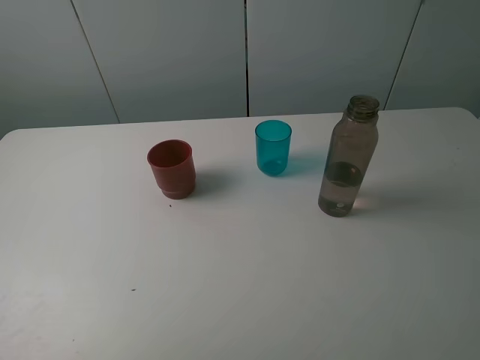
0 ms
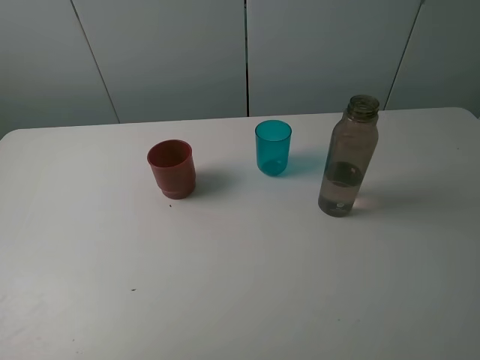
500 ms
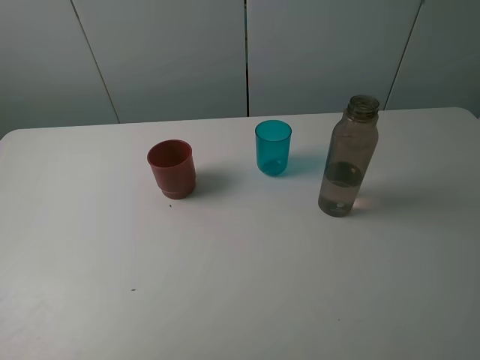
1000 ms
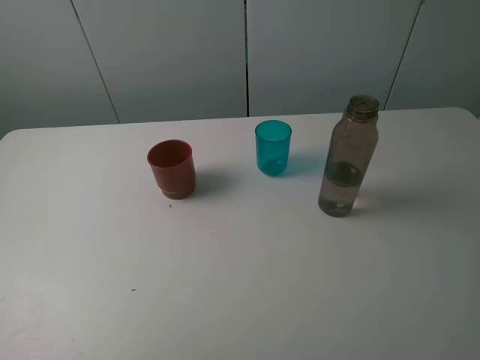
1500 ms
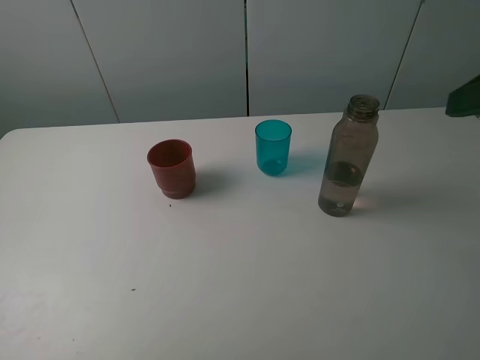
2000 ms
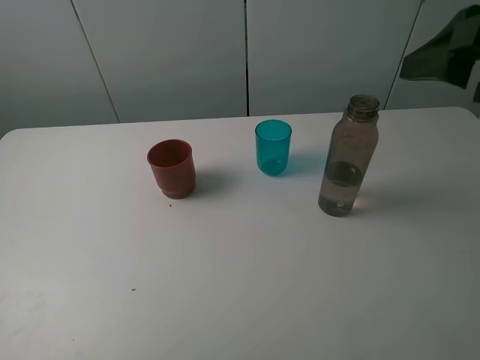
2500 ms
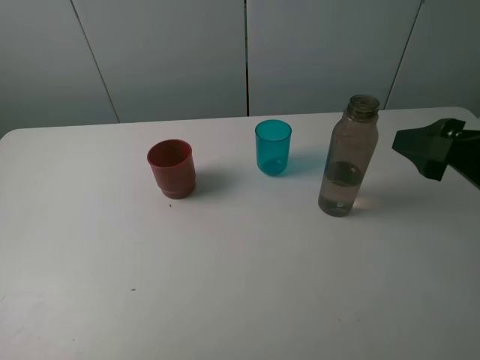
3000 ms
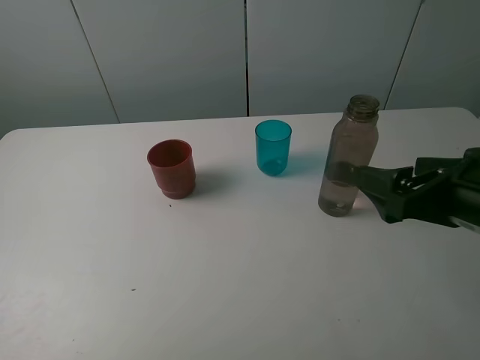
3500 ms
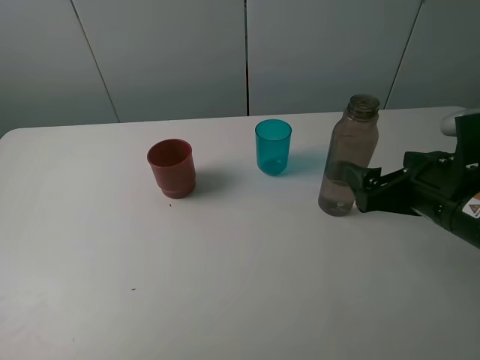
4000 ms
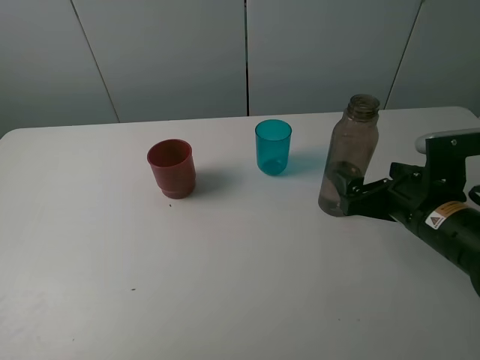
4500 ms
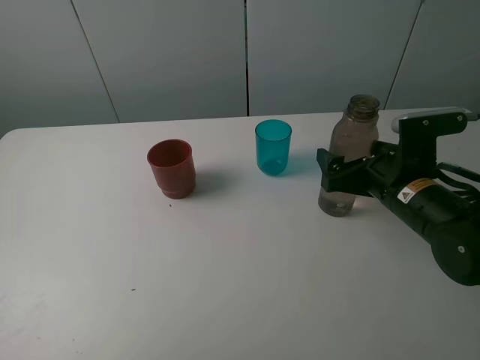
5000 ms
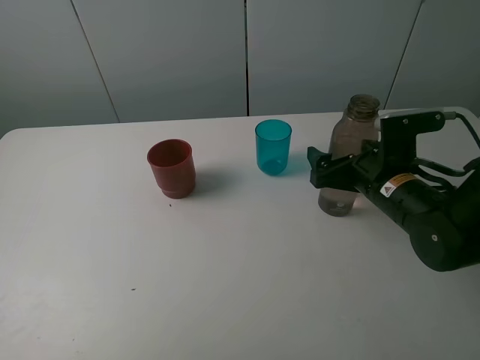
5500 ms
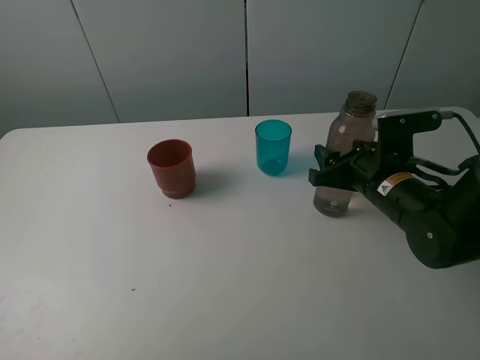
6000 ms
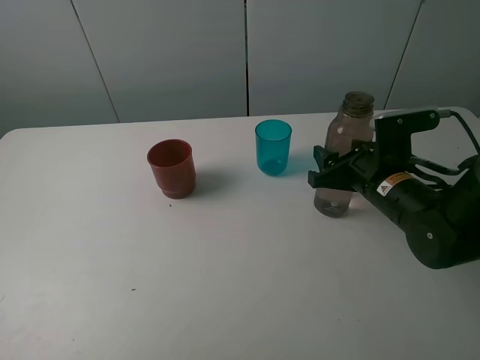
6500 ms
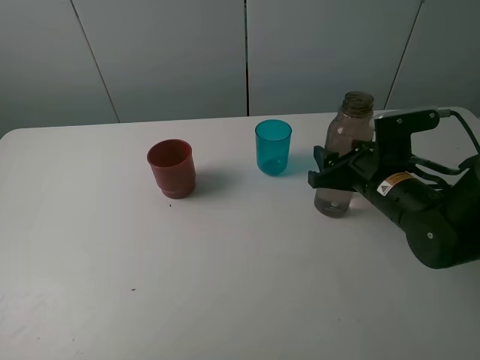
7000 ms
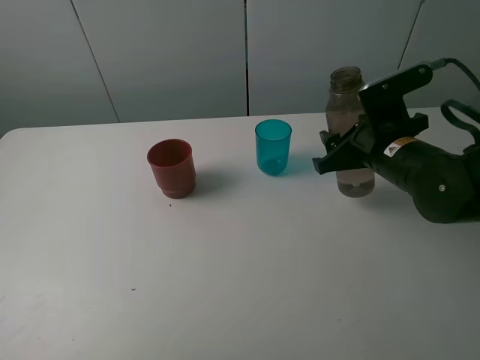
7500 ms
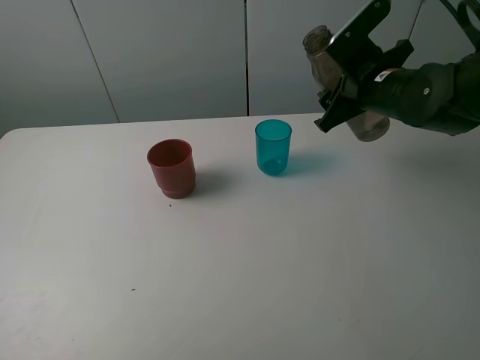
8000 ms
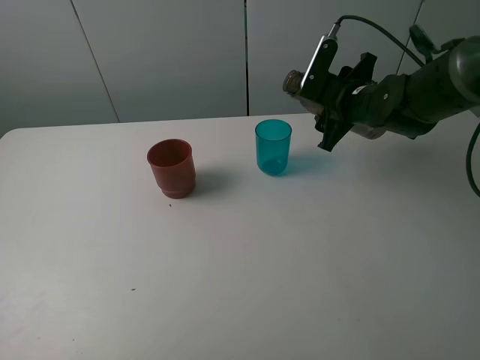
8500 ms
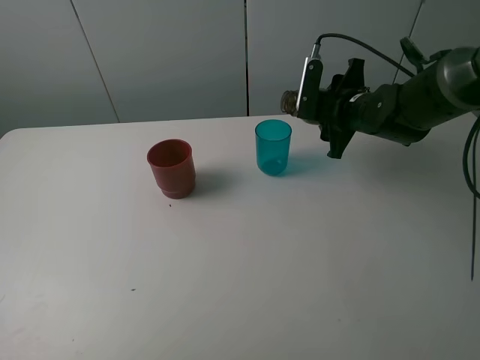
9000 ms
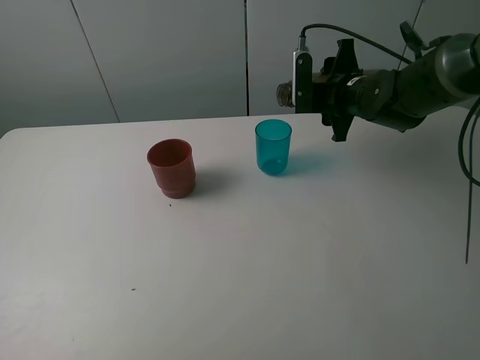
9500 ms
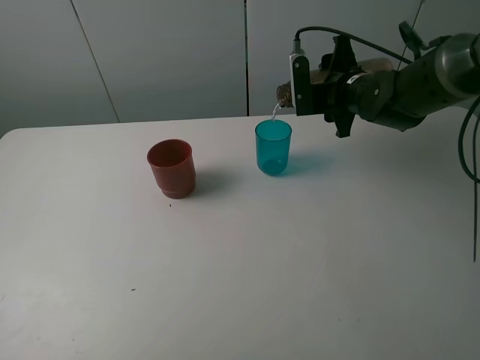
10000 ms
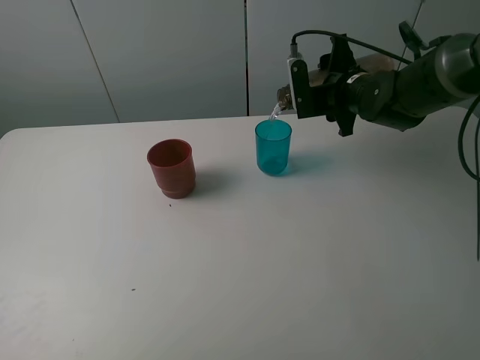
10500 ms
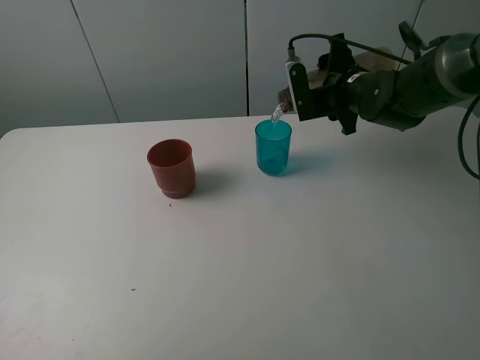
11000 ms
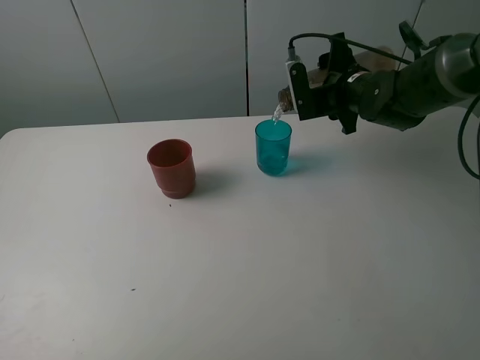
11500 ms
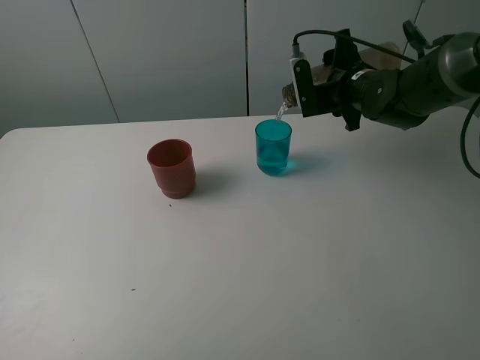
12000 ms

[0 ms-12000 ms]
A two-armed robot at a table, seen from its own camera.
Task of the whole recording: pick up the bottle and pour water into the cup, then pick up the cup containing water and pour it into another cup.
Step, 0 ms to 5500 ms: Grasp the brown bottle with the right gripper.
2000 ms to 4000 ms: The right gripper heads downward, covering some 15 cm.
4000 ms to 6000 ms: The right gripper moves forward and downward, some 10 cm, and closes its fingers.
6000 ms to 8000 ms: The right gripper goes some 15 cm forward and upward.
8000 ms to 10000 ms: The right gripper moves forward, some 5 cm.
10000 ms to 12000 ms: The grippers make only small movements.

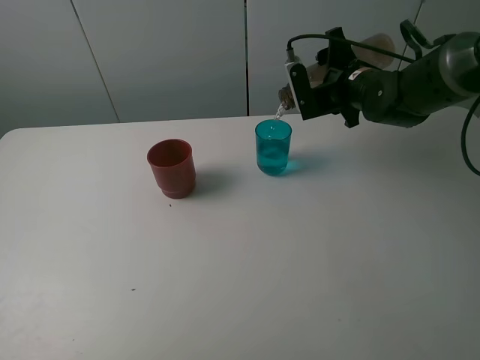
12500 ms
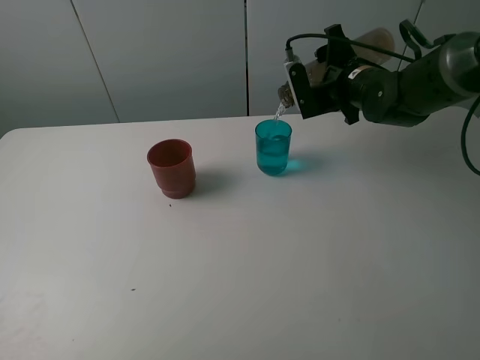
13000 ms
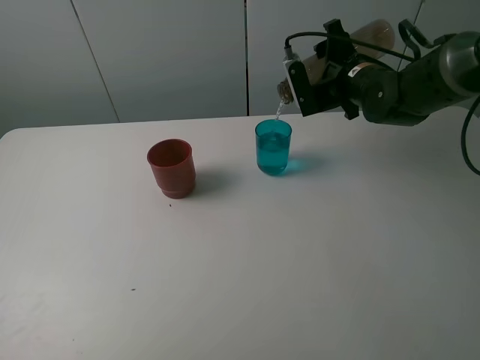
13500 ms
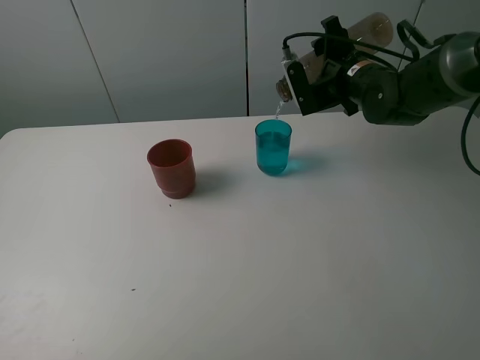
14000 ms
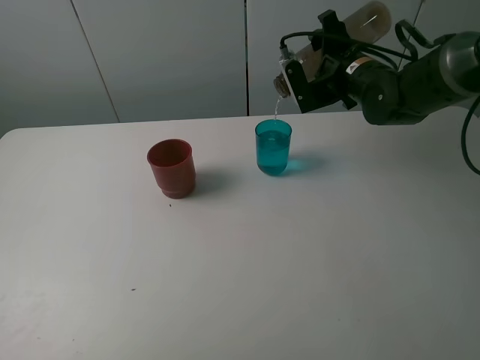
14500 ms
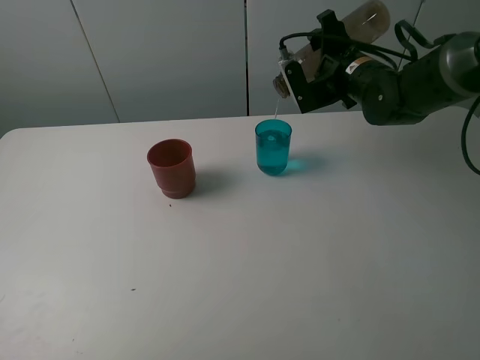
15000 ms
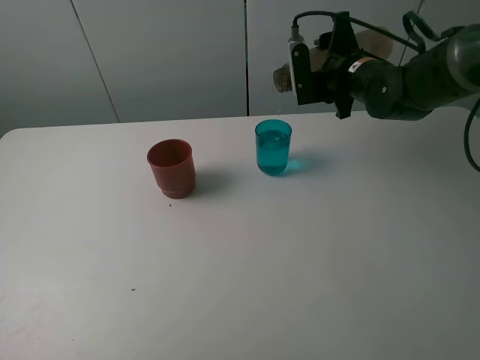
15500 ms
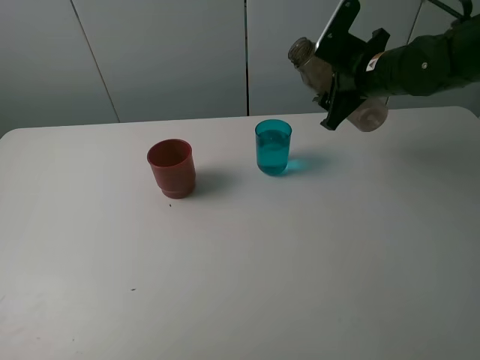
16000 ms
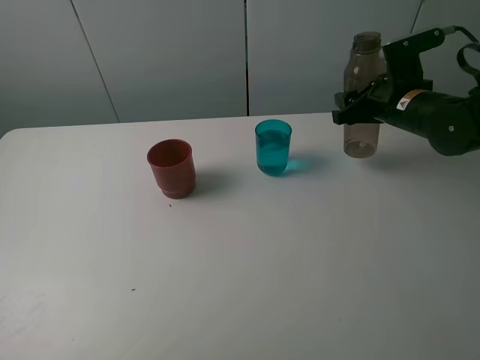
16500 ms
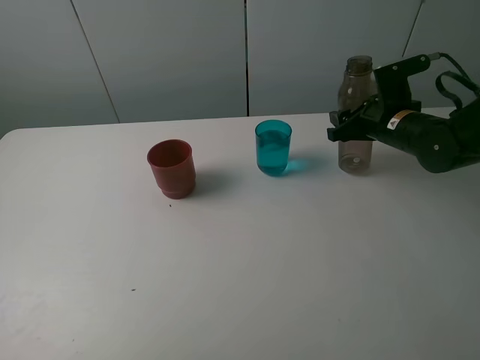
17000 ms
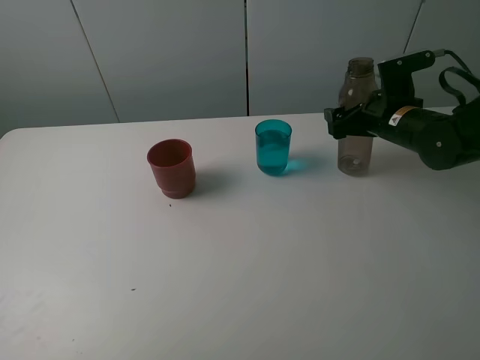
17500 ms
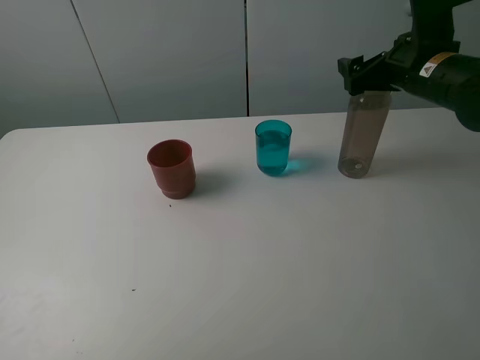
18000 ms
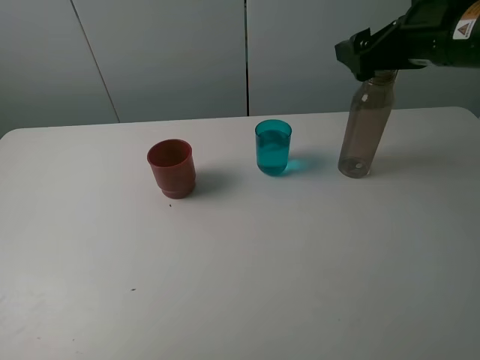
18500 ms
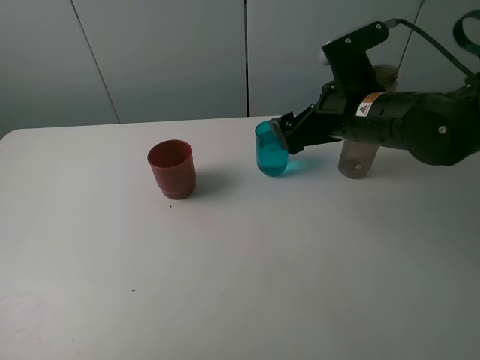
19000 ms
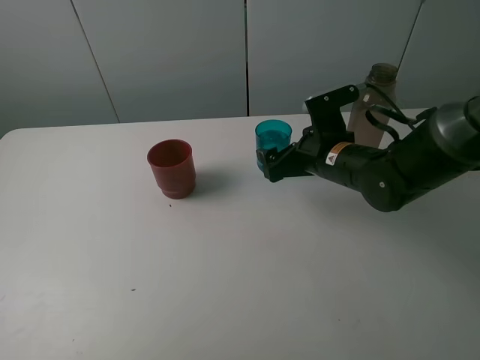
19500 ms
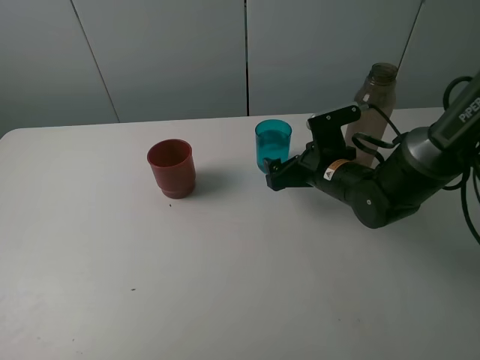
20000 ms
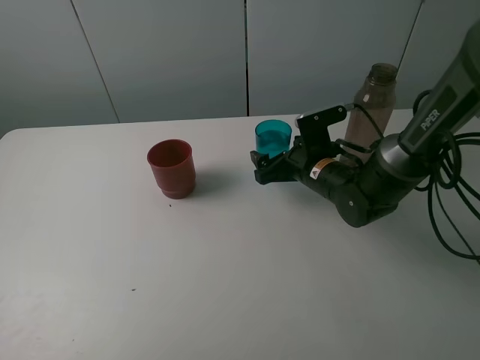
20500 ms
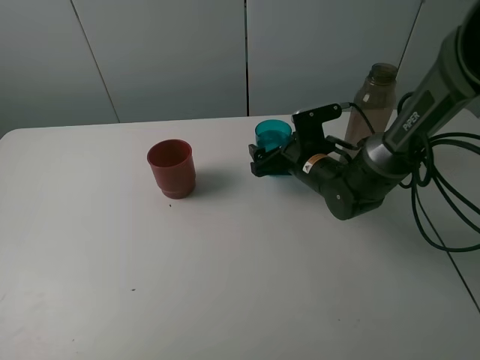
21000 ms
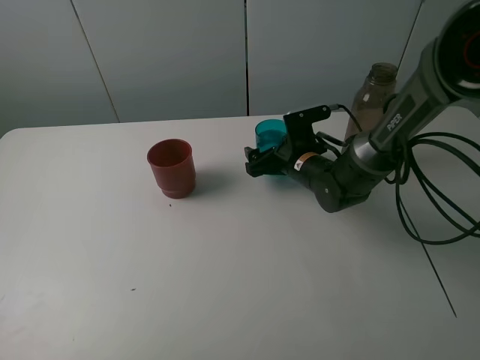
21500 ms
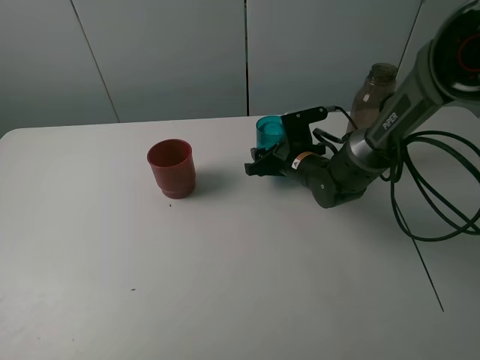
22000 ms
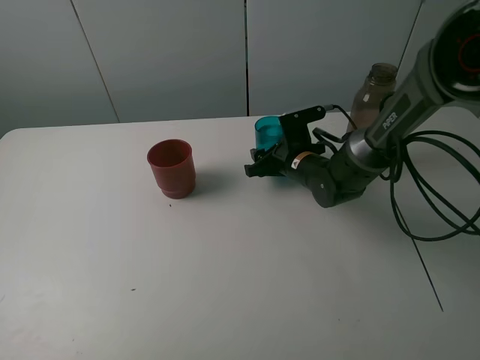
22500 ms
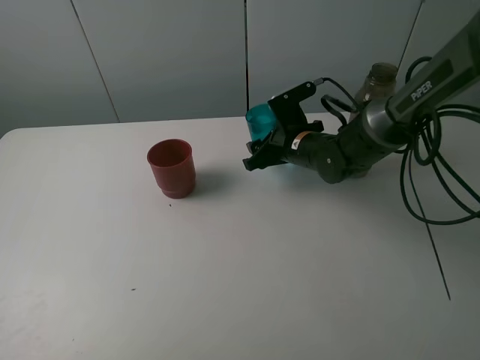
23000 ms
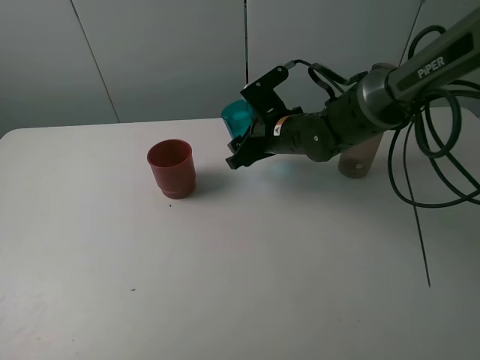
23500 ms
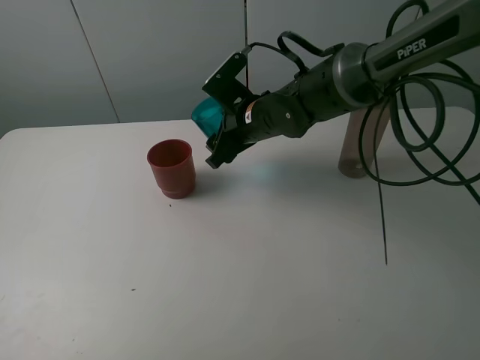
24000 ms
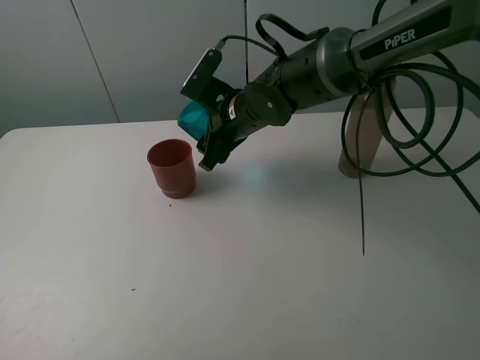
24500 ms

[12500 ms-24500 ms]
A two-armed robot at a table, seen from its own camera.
Task of the whole recording: pick up the bottle and pour water into the cup, then pick up the cup containing water and pour it into another cup.
Step, 12500 ms to 15500 ms: Pour water from brown bottle to blue cup with the right gripper.
Step, 16000 ms to 17500 ms: Place the brown bottle with the right gripper.
Step, 18000 ms to 21500 ms: Grasp the blue cup with the right gripper.
12500 ms to 14500 ms: There are only small adjustments of the grippers.
14500 ms to 16500 ms: The right gripper is displaced to the right by some 5 cm.
16500 ms to 18500 ms: The right gripper goes about 15 cm upward and backward, and opens up.
18500 ms to 20500 ms: The right gripper goes about 25 cm downward and to the left.
20500 ms to 22500 ms: The right gripper closes.
22500 ms to 24500 ms: The right gripper travels upward and to the left by some 15 cm.

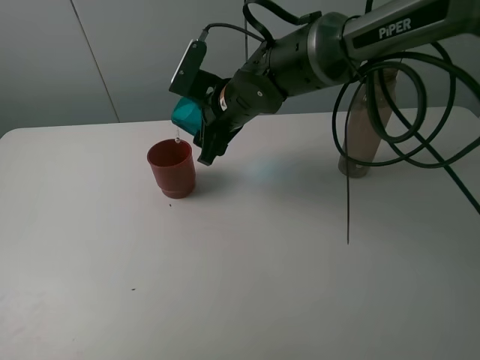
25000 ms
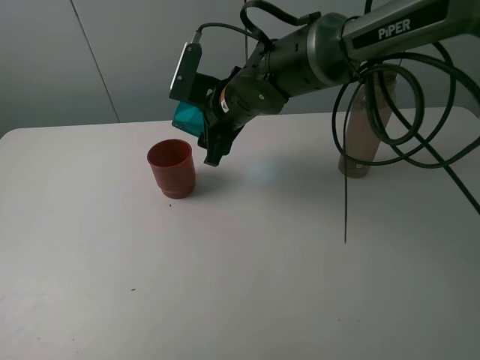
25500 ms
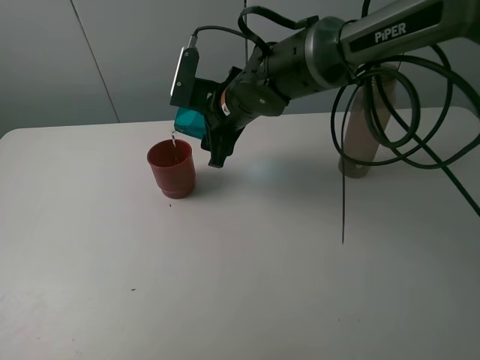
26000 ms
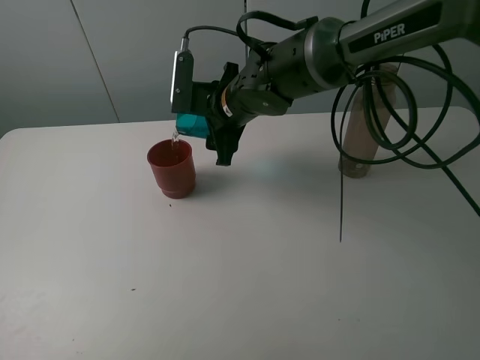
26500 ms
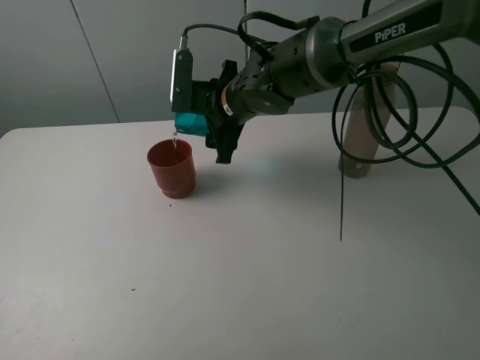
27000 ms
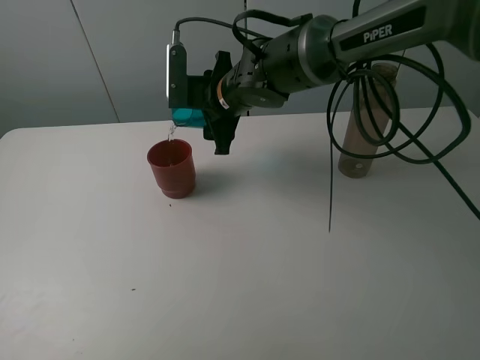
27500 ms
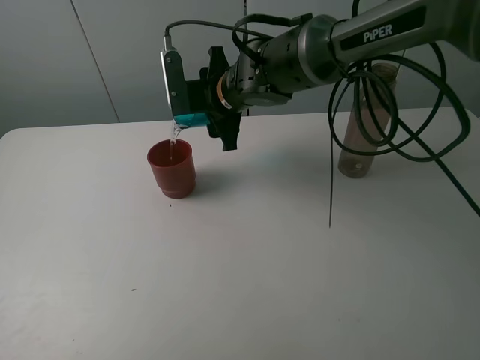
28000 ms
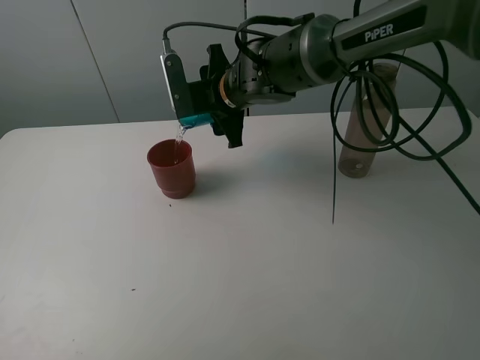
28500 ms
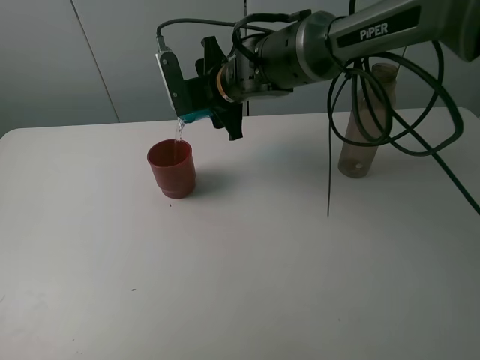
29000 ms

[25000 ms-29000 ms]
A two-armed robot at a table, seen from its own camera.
Task of the whole recording: pick up the bottle and pour water into the cup, then pick up the cup containing water and pour it into another cup.
25000 ms to 27000 ms: There are only small adjustments of the grippers.
